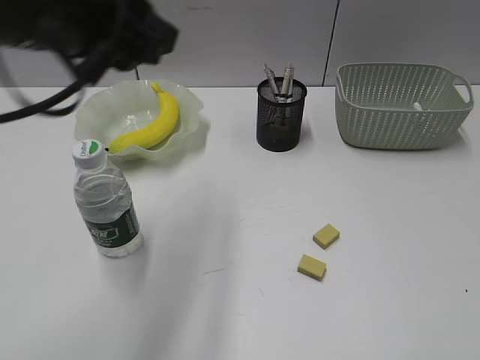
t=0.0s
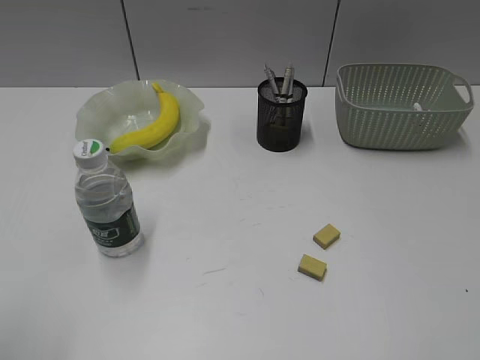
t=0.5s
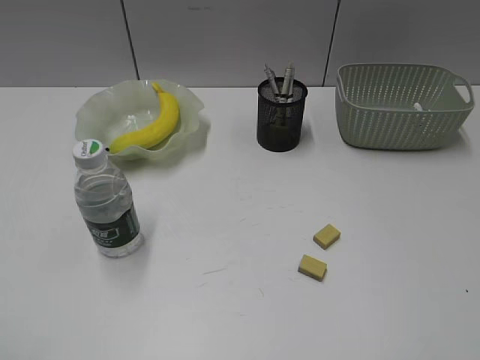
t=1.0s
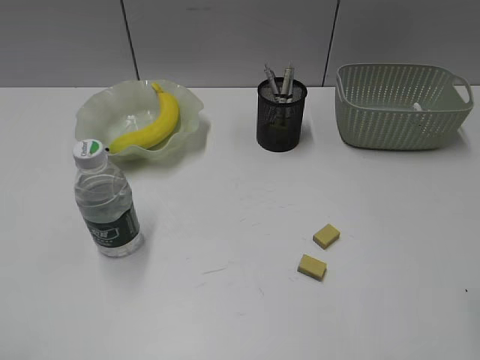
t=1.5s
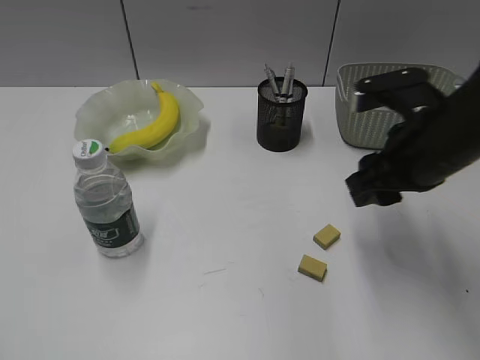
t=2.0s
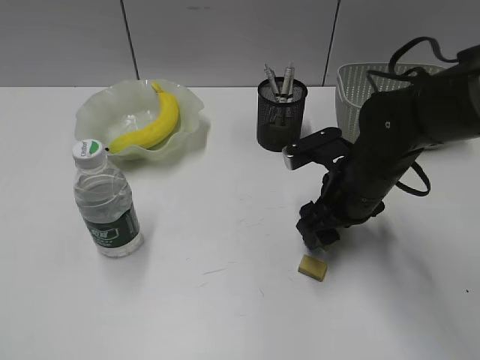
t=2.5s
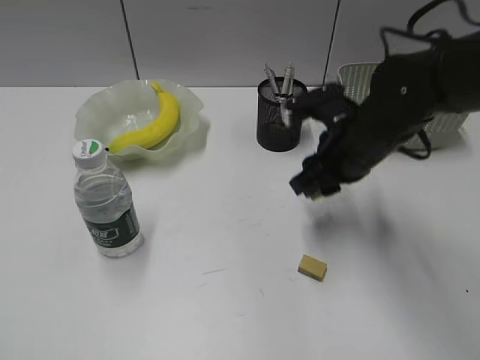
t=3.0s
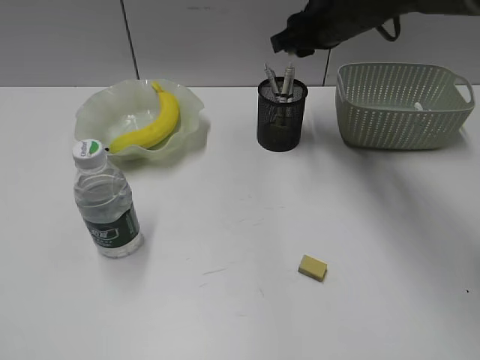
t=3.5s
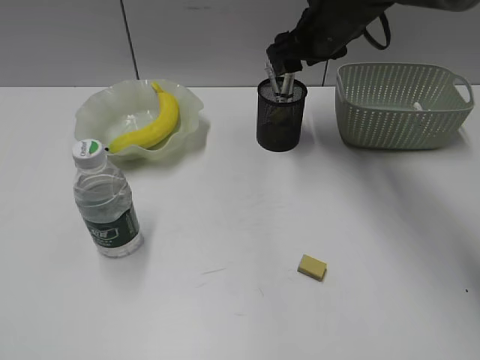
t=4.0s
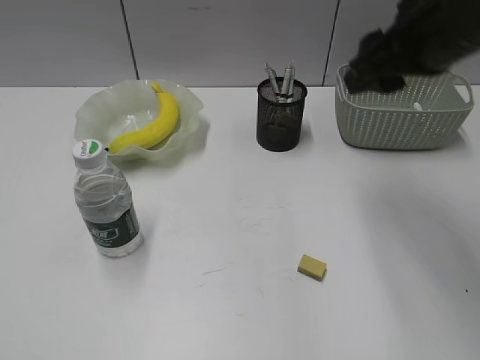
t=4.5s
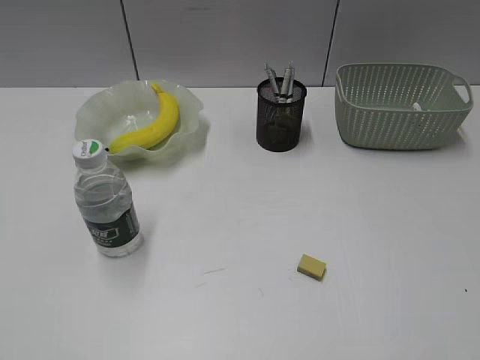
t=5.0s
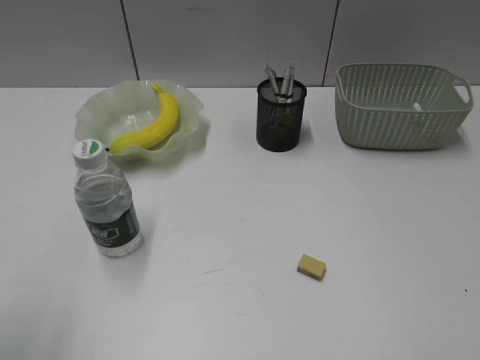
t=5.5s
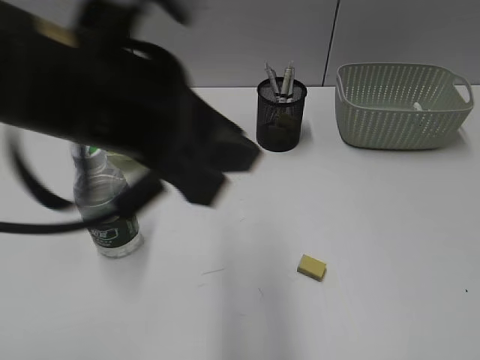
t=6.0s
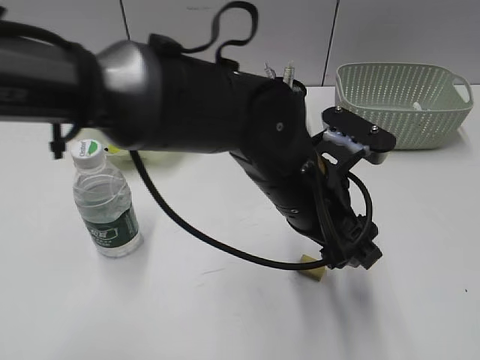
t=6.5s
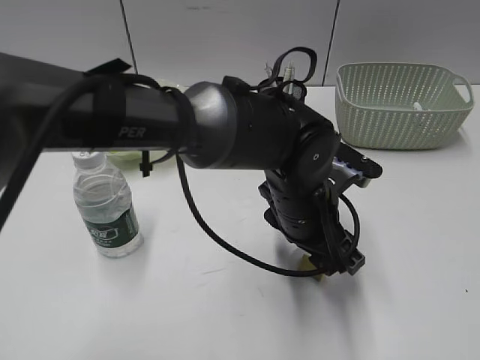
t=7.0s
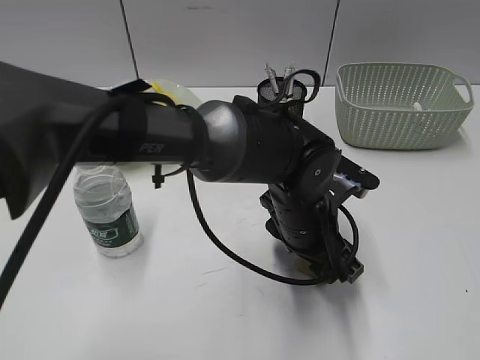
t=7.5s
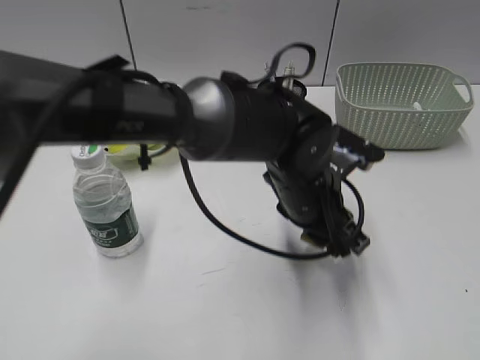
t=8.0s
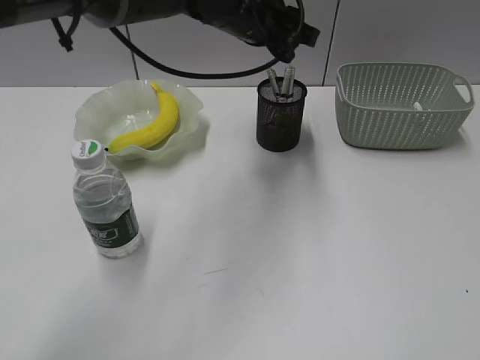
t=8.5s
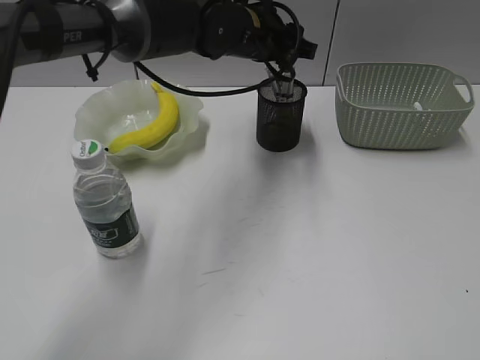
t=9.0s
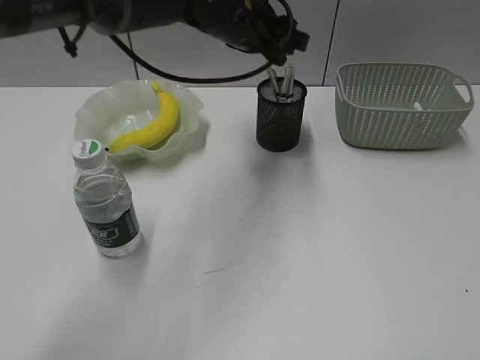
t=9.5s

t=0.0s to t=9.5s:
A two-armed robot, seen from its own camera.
Step, t=0.0s to t=2.5s: Grasp the eraser with right gripper.
Step, t=3.0s to t=4.0s: Place the eraser in pen holder with right gripper.
Step, t=4.5s to t=7.5s: Grasp the eraser with left gripper.
Step, t=8.0s to t=9.0s: Place the eraser in pen holder with left gripper.
t=0.0s to t=2.0s: The left gripper moves backward and to the left, about 30 cm; the right gripper moves forward and to the left, approximately 30 cm.
t=2.0s to t=4.0s: The right gripper moves forward, about 20 cm, and opens up.
t=4.0s to t=5.5s: The right gripper heads backward and to the right, covering roughly 50 cm, and closes; the left gripper is displaced forward by approximately 5 cm.
t=5.5s to t=7.5s: The left gripper shifts roughly 50 cm to the right, downward and forward, and opens up.
t=7.5s to t=9.5s: The left gripper shifts about 25 cm forward, upward and to the left.

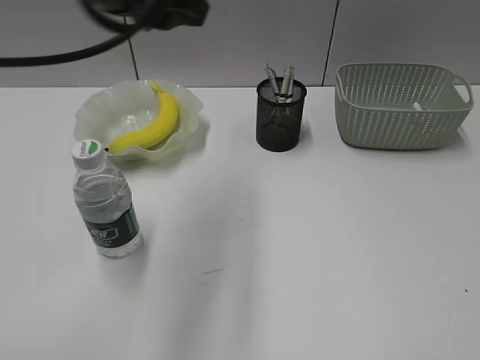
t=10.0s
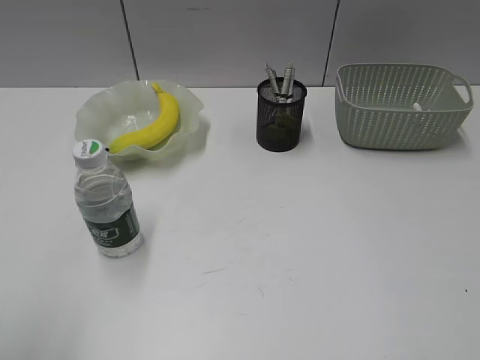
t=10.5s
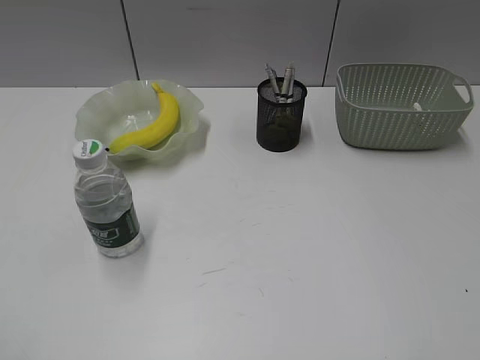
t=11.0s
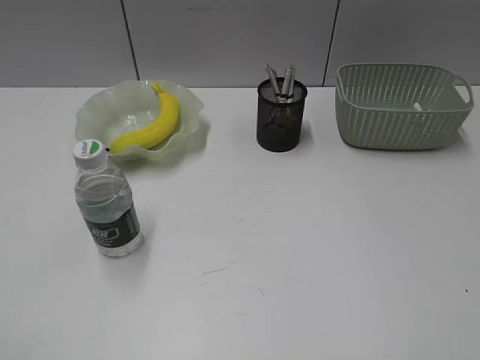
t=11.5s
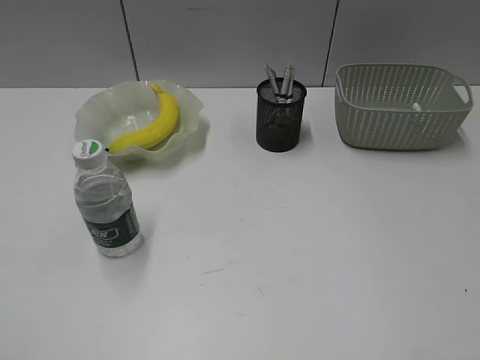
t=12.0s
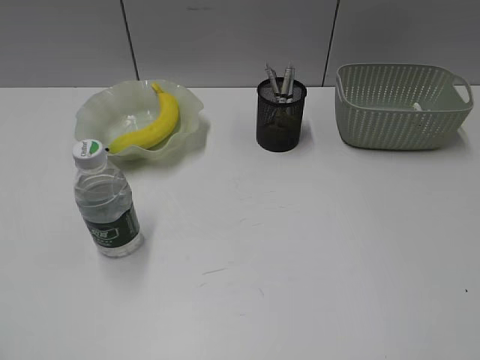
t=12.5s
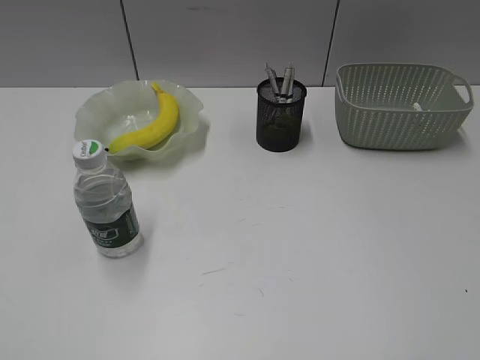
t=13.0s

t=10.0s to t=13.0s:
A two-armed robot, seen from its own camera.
t=10.0s to t=11.5s: The left gripper goes approximately 35 cm backward and to the left.

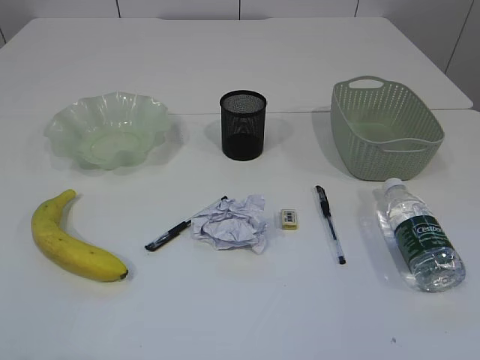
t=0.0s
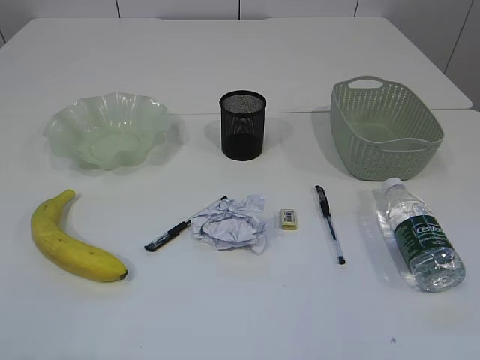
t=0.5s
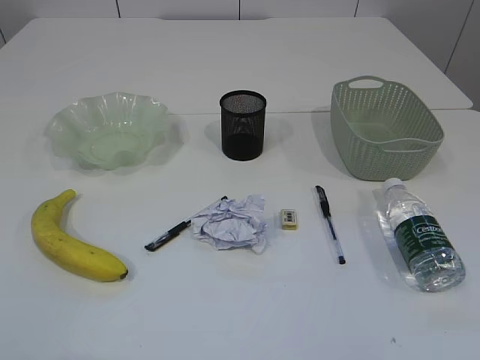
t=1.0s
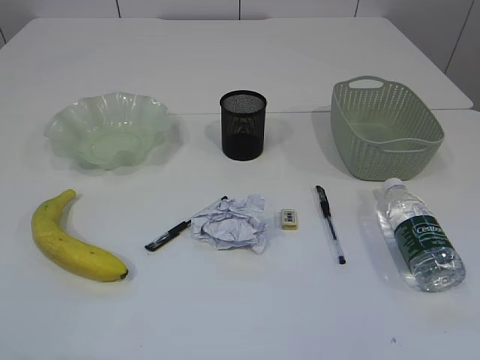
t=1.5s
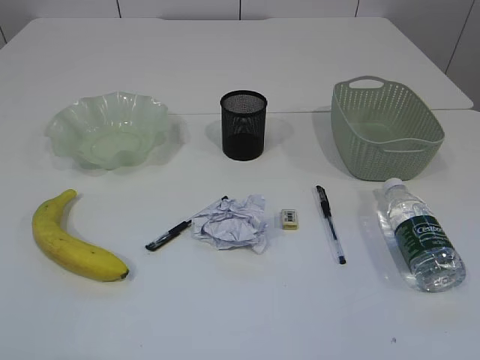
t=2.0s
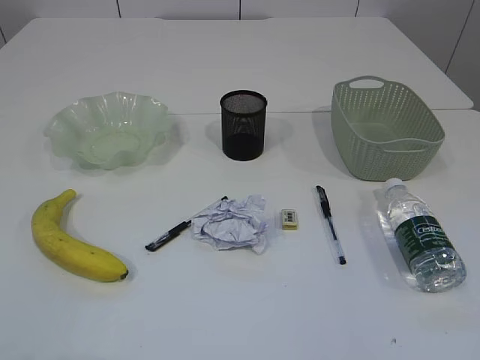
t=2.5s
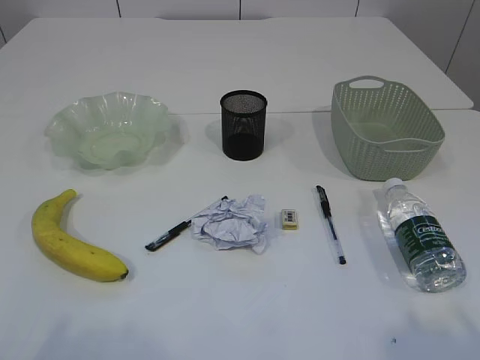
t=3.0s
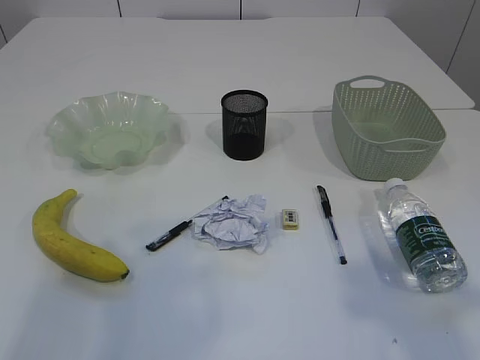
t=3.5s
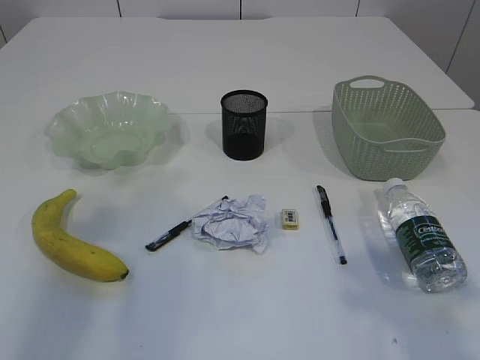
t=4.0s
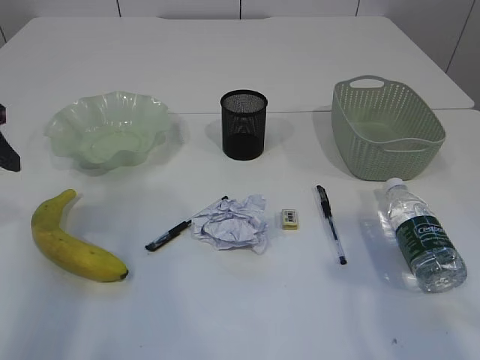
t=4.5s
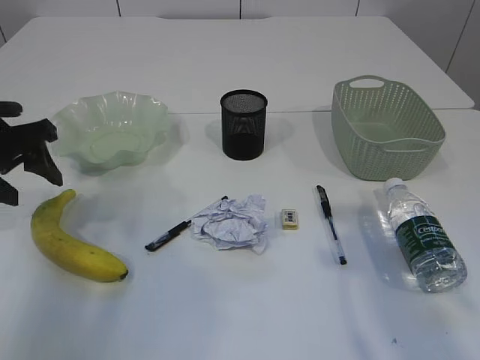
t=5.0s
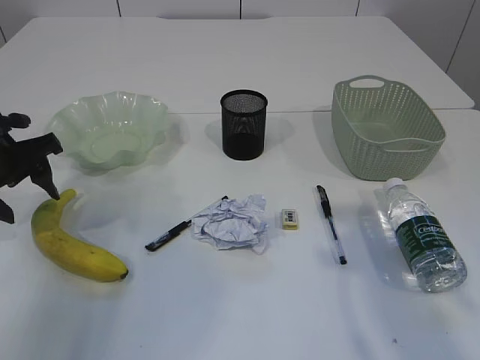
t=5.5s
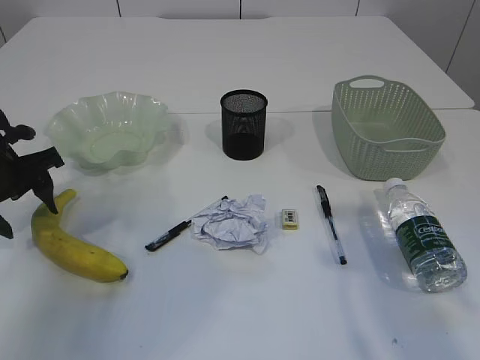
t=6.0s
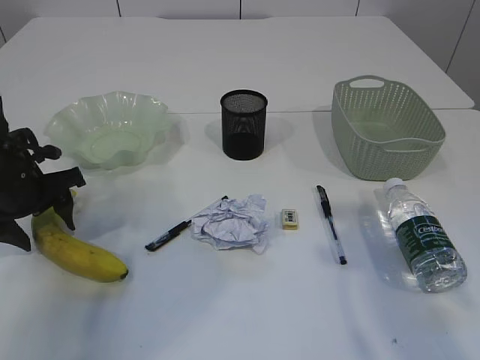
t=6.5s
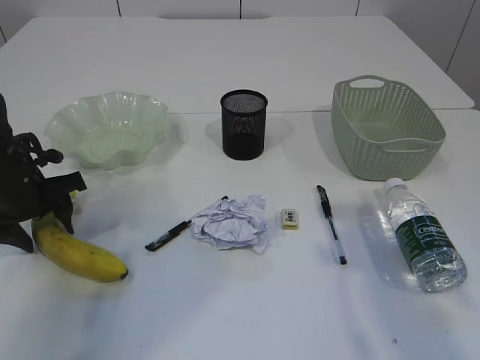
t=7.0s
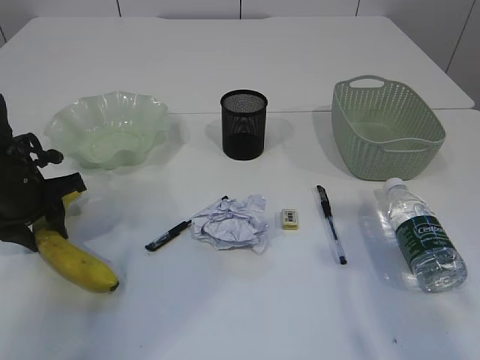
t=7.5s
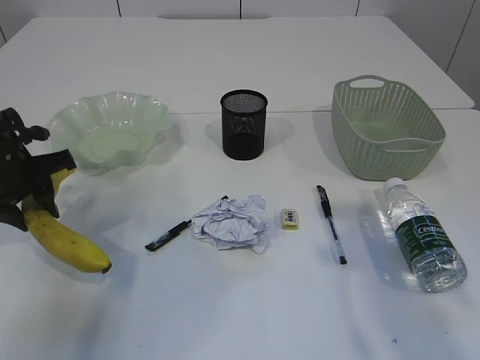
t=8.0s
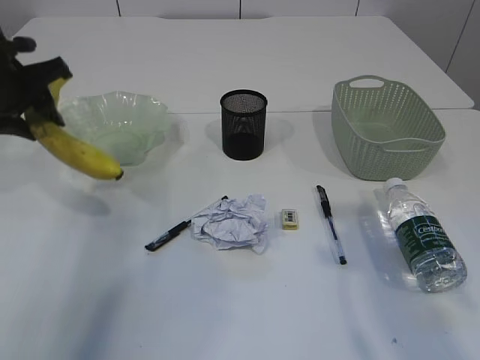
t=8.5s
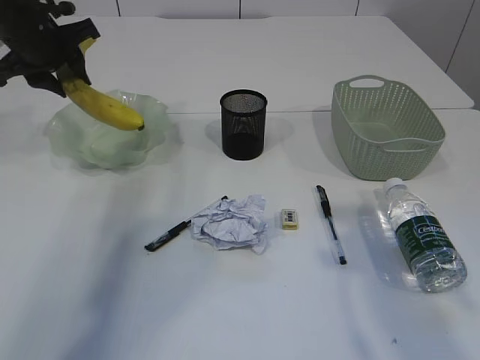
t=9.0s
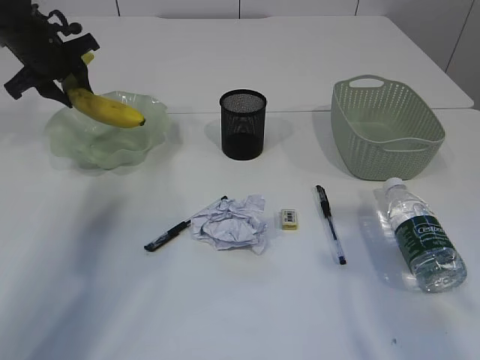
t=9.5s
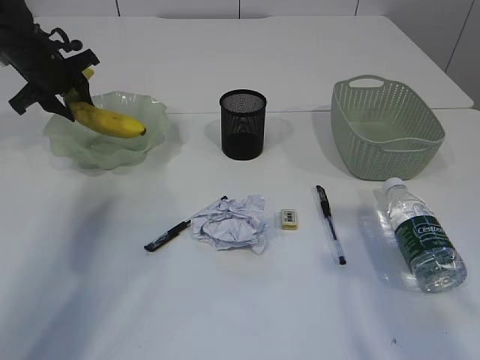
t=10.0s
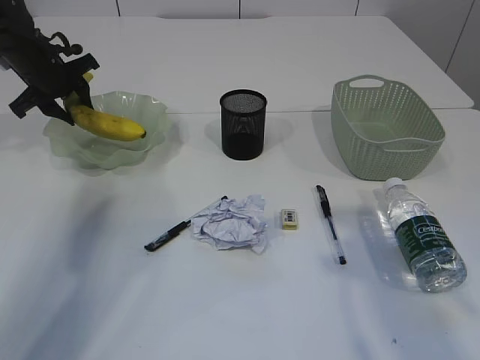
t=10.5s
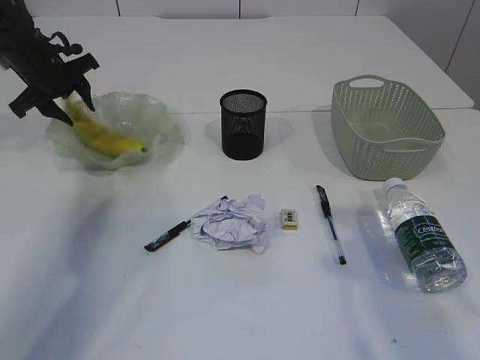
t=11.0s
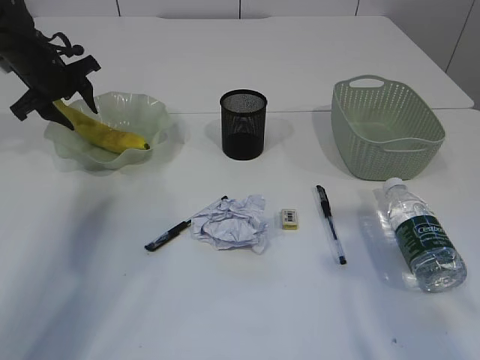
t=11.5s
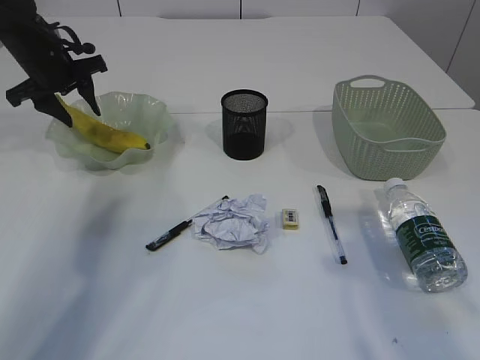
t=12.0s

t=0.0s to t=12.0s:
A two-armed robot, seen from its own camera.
t=2.0s to t=4.0s: The right gripper moves forward and upward, about 15 cm; the left gripper goes about 25 cm forward.
t=4.0s to t=6.0s: The left gripper is displaced downward and forward by approximately 20 cm.
t=6.0s to t=8.0s: The left gripper closes its fingers.
t=8.0s to t=10.0s: The left gripper travels forward by roughly 20 cm.
t=10.0s to t=12.0s: The grippers make only small movements.

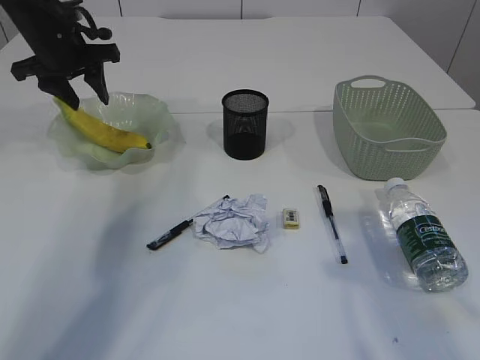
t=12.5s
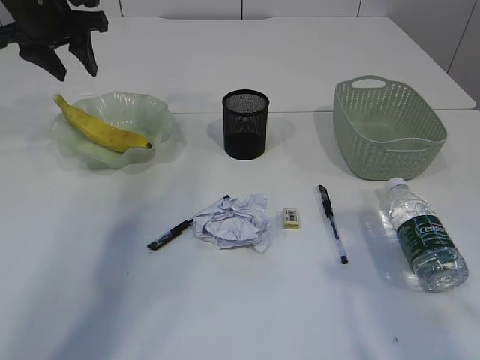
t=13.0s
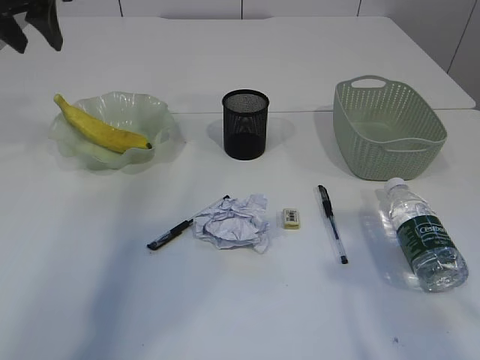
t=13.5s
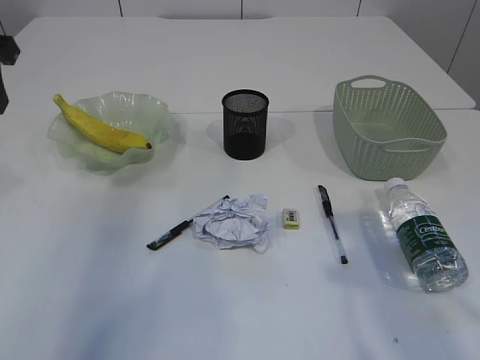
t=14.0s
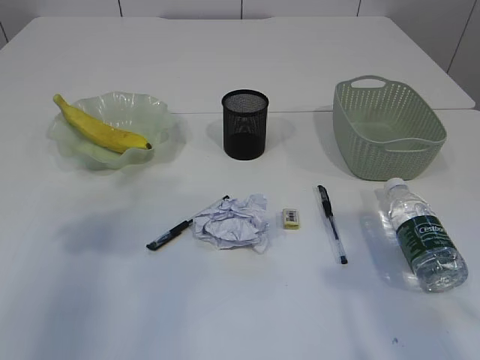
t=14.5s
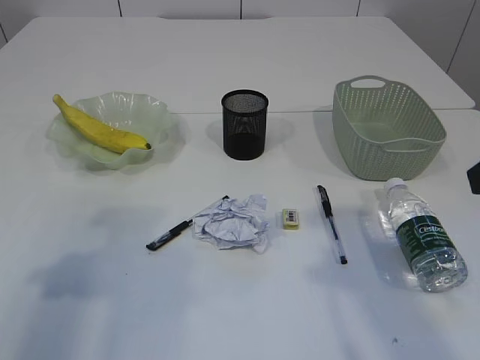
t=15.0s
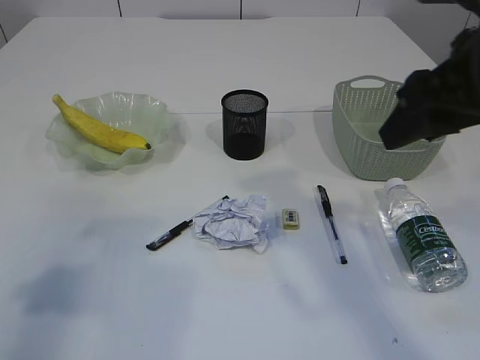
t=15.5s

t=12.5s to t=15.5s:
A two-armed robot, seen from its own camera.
t=12.5s to t=14.0s: The left gripper is displaced backward and upward by about 20 cm.
t=14.0s to t=15.5s: The left gripper is displaced backward by about 20 cm. The right gripper heads forward and to the left, covering about 10 cm.
